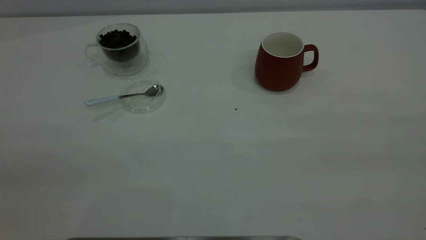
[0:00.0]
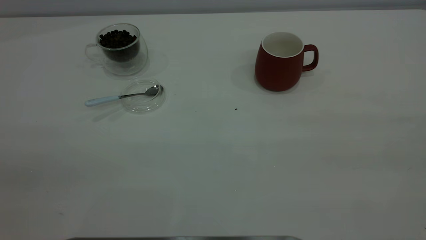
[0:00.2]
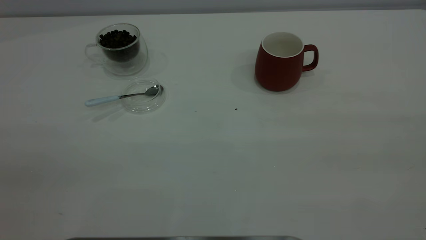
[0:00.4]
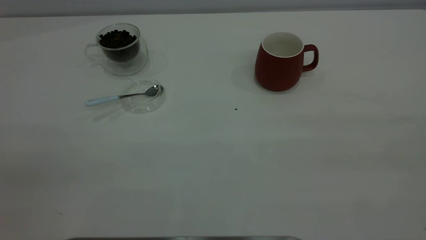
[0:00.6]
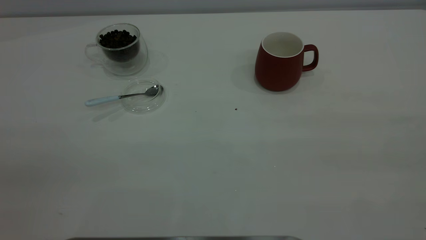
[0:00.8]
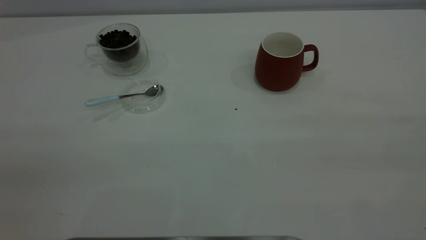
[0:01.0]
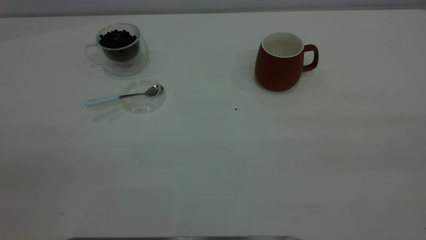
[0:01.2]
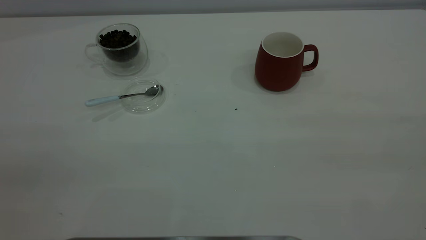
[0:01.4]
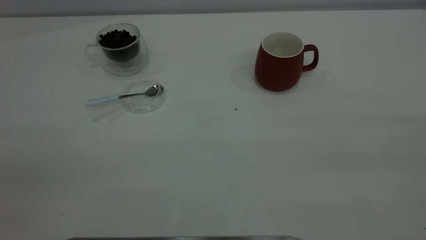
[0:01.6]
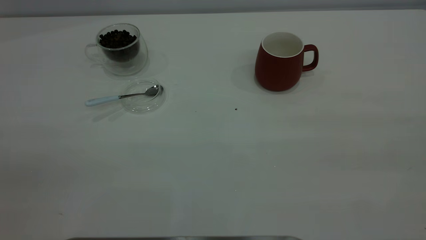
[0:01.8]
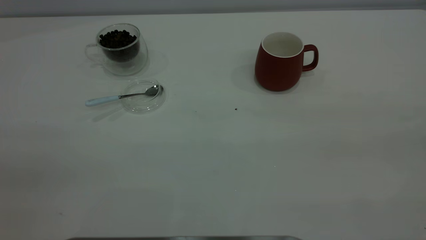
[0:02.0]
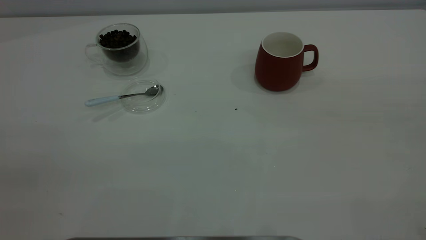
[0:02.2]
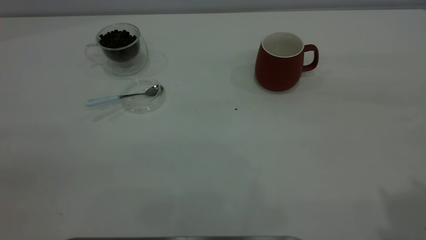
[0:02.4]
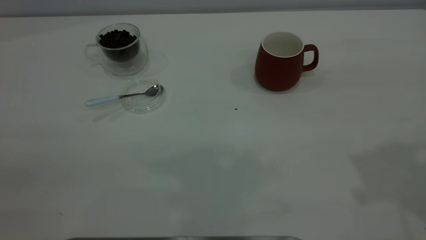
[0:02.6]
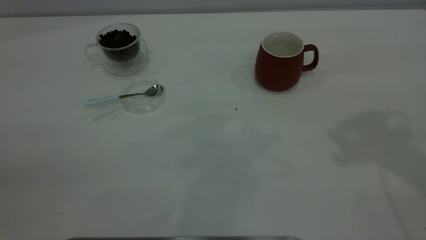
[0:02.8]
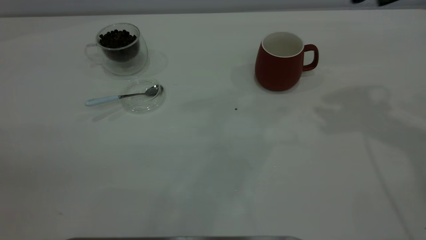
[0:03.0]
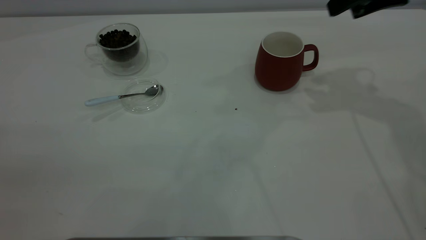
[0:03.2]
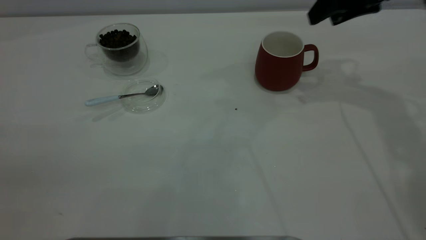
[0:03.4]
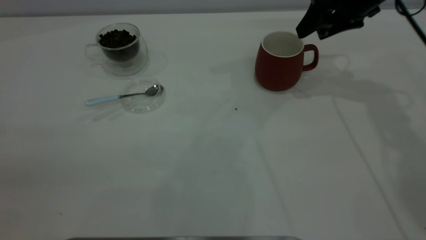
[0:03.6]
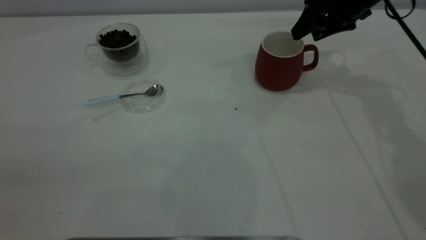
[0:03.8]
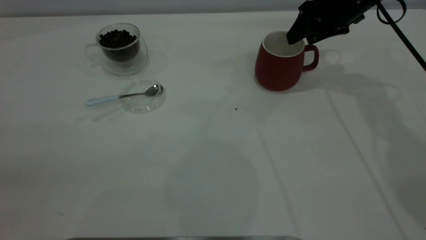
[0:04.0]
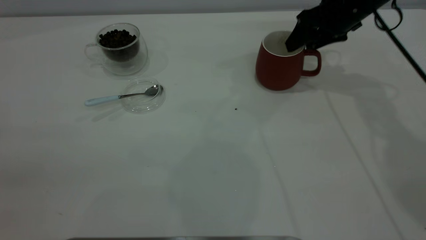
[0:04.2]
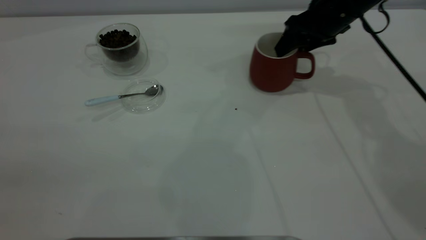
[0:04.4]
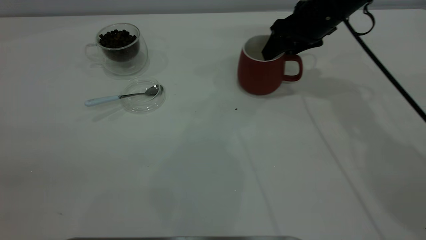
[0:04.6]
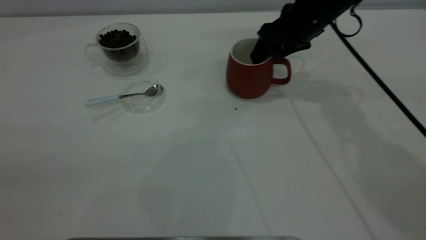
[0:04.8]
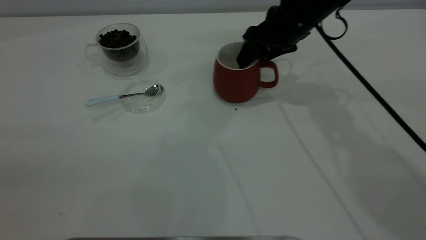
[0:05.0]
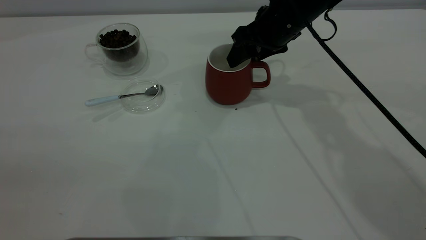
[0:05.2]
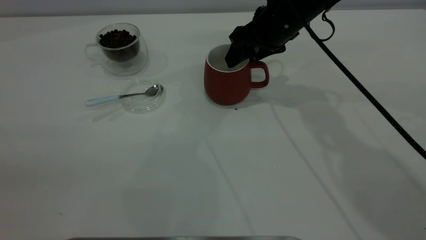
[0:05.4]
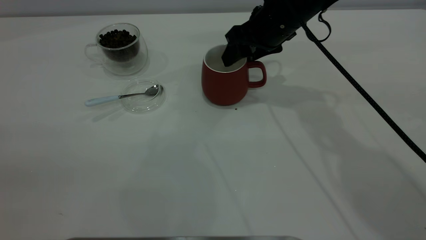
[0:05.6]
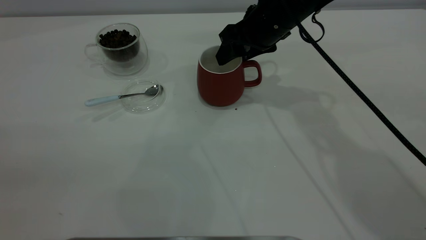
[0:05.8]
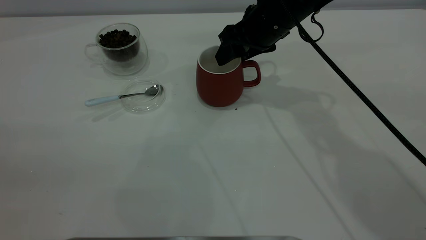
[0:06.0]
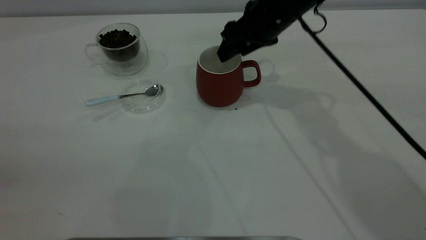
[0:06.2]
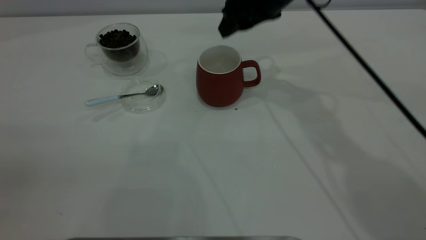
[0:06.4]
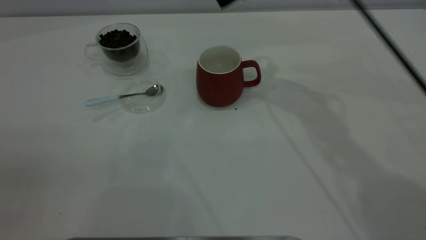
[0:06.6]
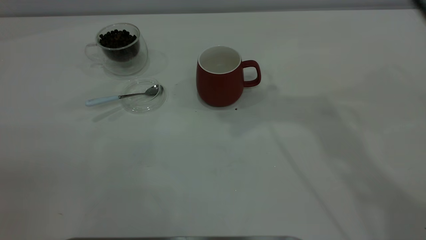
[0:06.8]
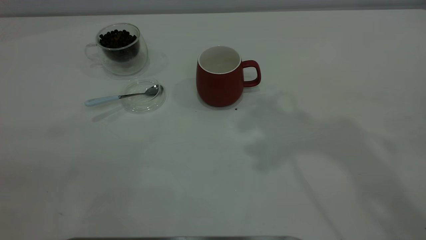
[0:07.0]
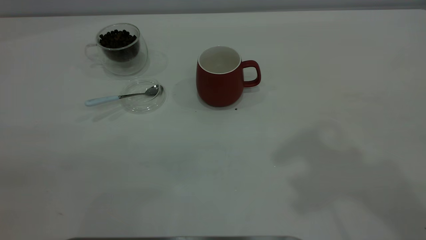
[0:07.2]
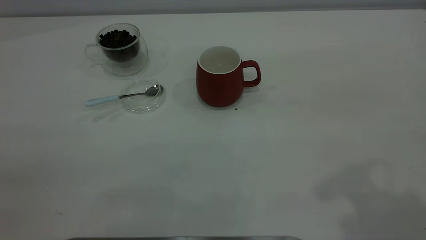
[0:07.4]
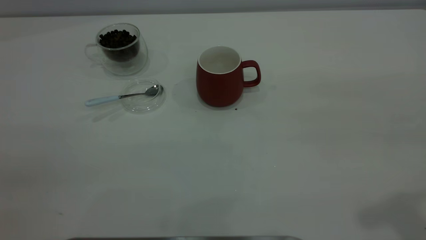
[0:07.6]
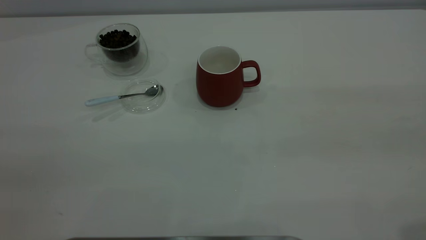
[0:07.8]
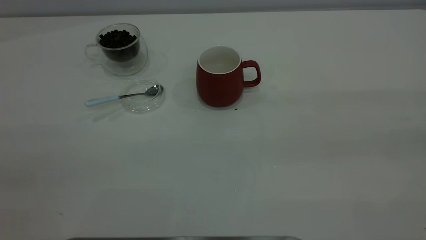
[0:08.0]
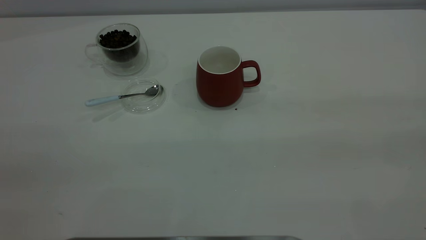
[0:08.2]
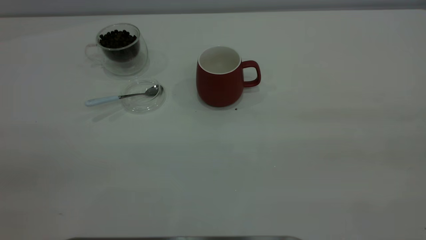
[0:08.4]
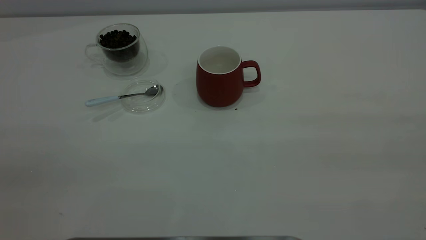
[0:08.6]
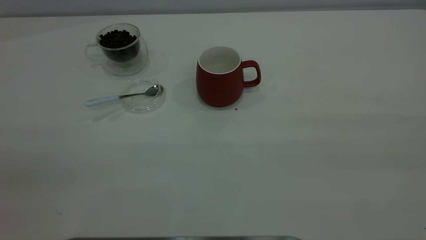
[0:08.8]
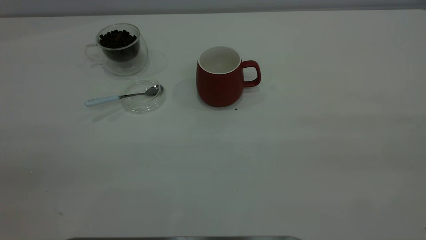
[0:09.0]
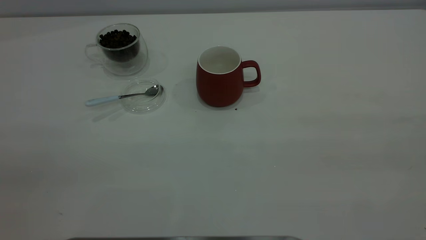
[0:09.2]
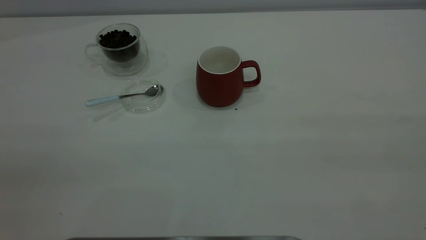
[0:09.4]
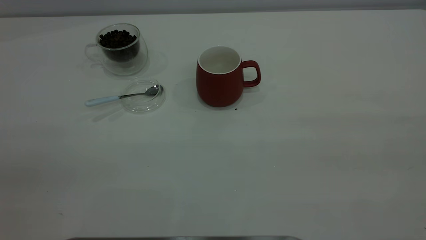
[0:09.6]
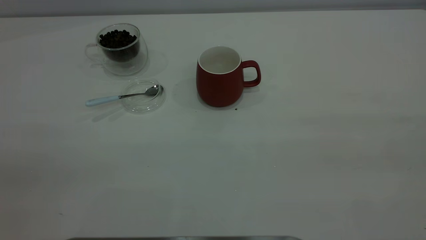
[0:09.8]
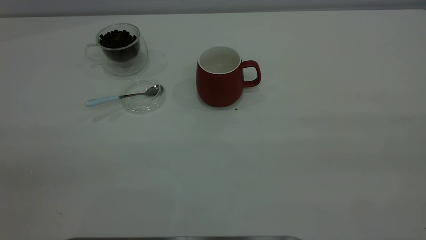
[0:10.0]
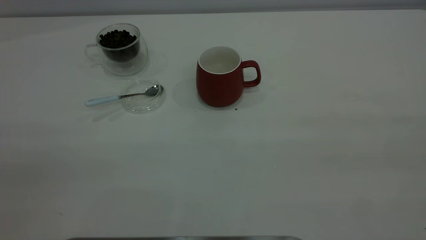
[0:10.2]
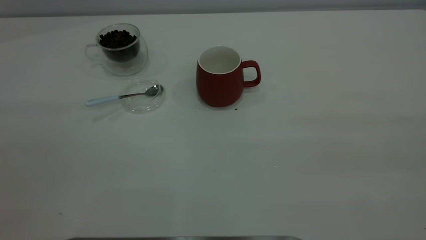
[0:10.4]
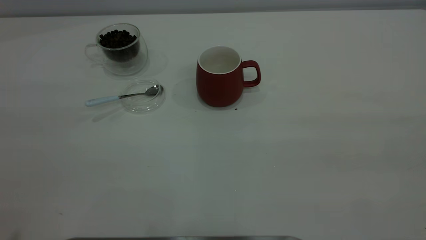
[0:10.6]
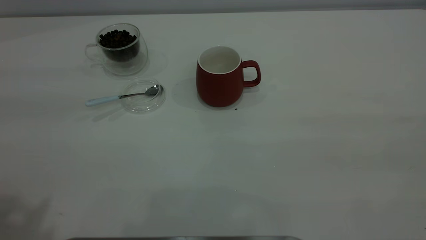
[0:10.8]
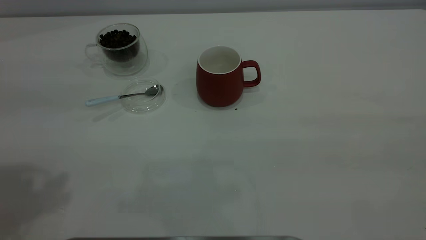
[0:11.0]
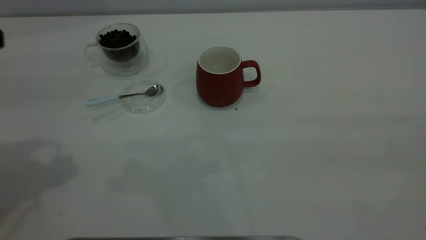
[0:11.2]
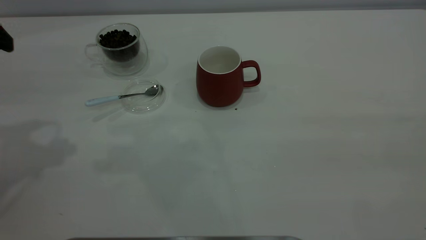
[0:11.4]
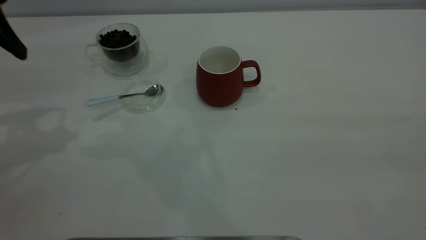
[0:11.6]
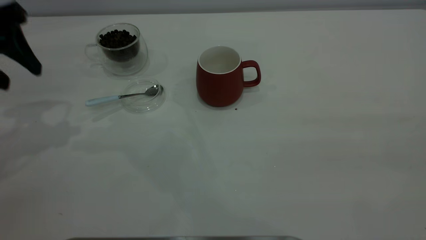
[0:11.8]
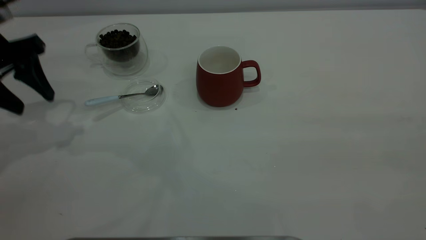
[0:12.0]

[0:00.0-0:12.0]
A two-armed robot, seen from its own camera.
Task of the whole recording: the right gripper place the red cup in the center of the table, the left gripper take the blue spoon from the cup lid and scoop out the coffee beans from the coffee cup and put them into the red cup, the left gripper put the spoon back into the cup lid.
Step, 0:00.0 to 0:06.2: Move the cup to the center of view.
0:00.0 to 0:01.6: Both grippers stay put.
0:03.0 to 0:04.4: The right gripper heads downward, forward and to the left, covering about 20 cm.
0:04.4 to 0:06.0: The right gripper moves to the left, some 10 cm.
0:06.0 to 0:07.6: The right gripper goes approximately 40 cm backward, upward and to the right.
0:10.4 to 0:12.0: The left gripper travels forward and downward by about 35 cm.

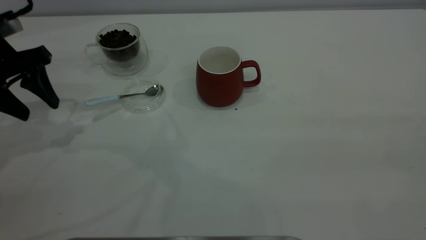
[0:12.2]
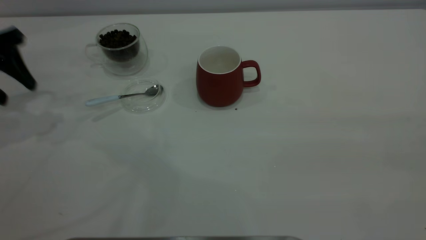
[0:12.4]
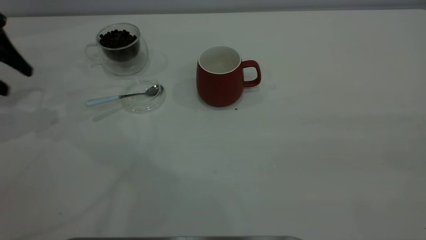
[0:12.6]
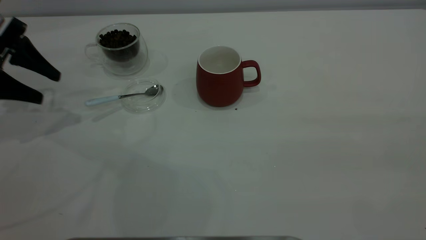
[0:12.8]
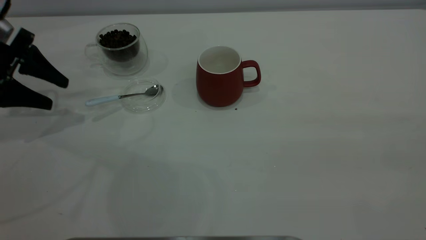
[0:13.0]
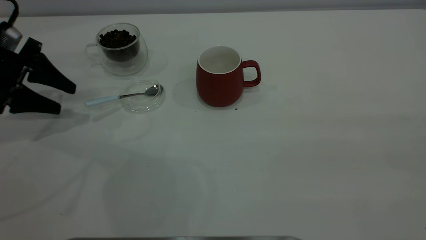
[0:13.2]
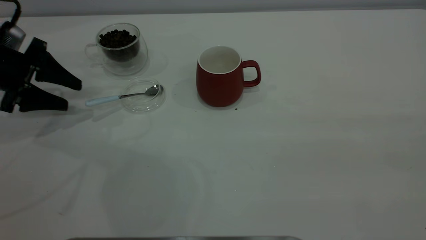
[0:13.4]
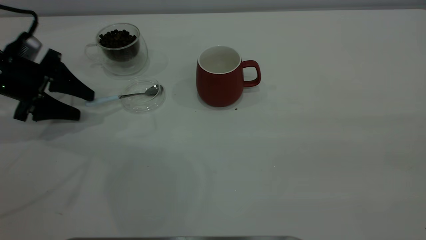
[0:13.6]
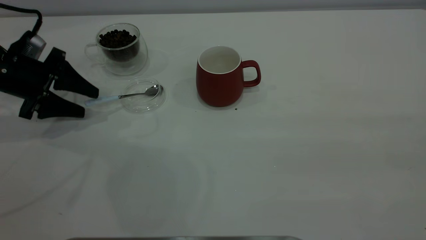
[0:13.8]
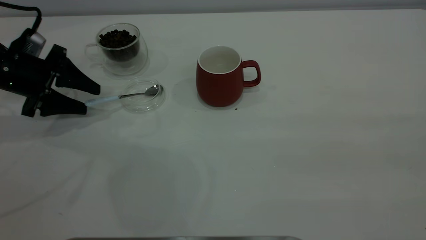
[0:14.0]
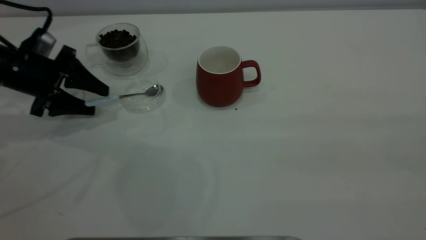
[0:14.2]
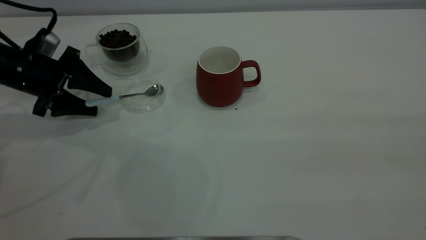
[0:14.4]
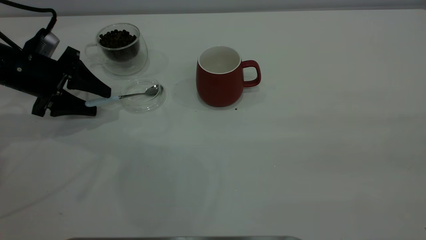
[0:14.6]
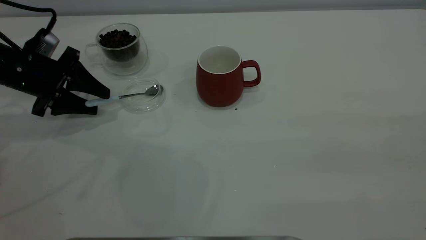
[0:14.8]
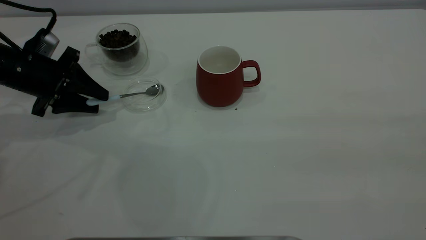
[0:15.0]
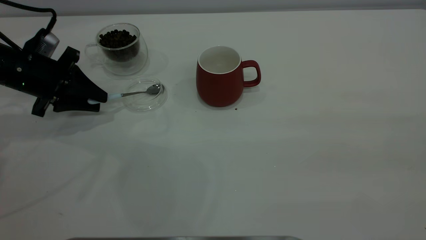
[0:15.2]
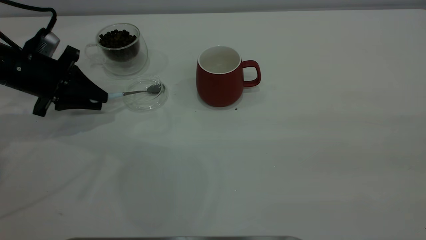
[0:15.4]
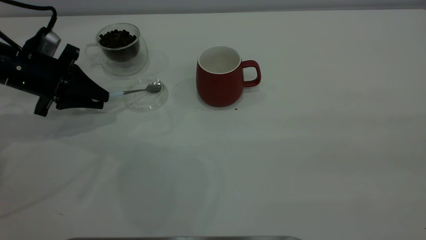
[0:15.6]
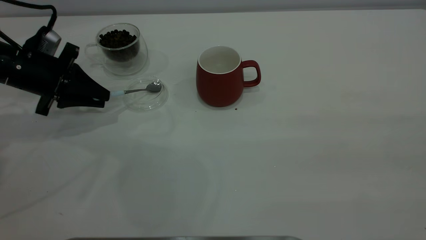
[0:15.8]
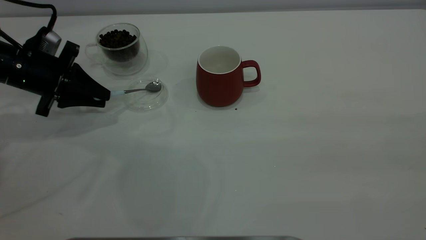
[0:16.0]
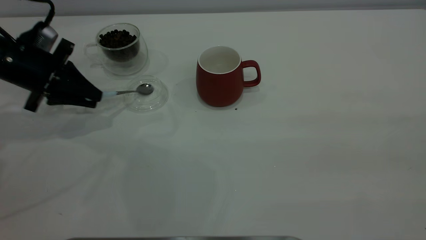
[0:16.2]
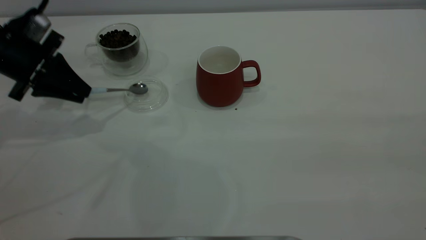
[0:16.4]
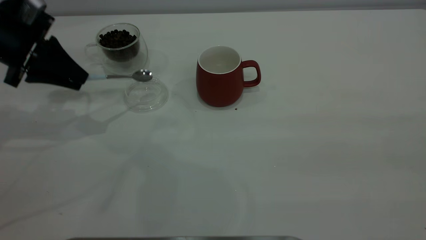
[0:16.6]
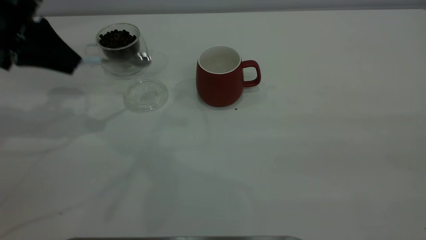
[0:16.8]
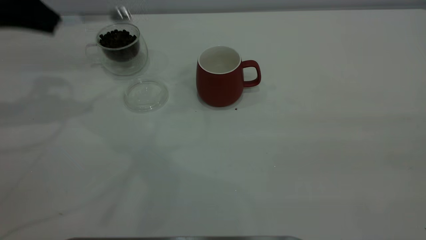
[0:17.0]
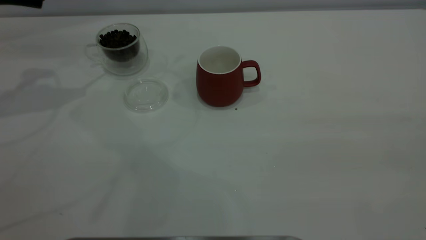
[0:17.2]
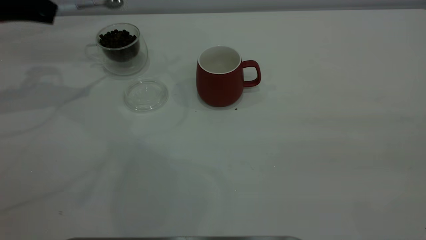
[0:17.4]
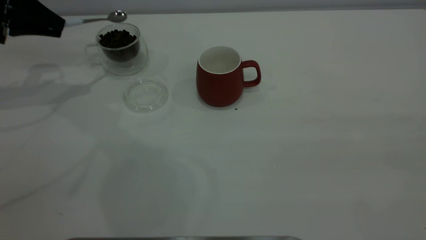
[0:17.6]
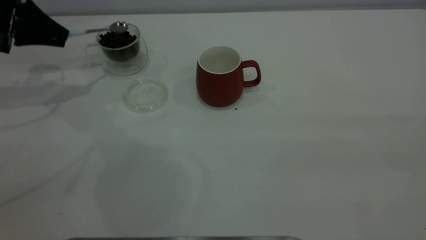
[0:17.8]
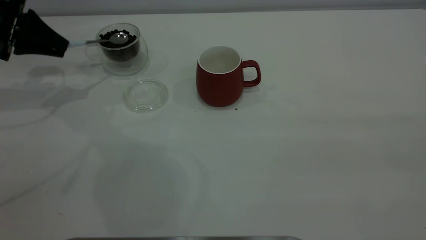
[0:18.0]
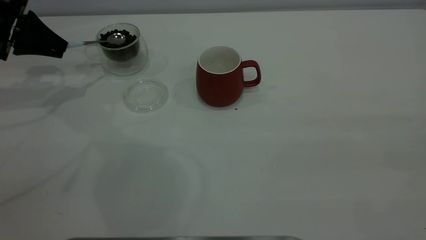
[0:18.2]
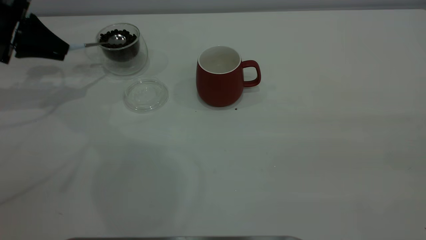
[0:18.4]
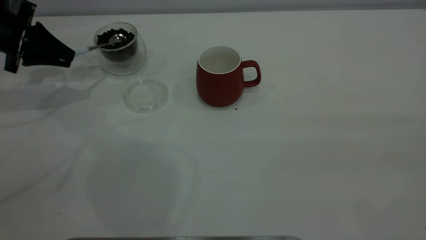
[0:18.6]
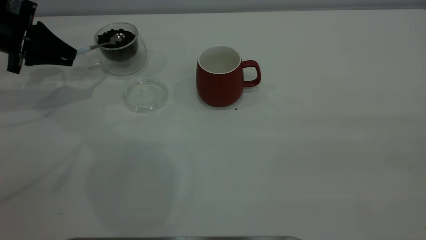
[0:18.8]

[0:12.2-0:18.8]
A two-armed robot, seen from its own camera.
Task of the whole recording: the right gripper place the red cup in the center of the table, the left gripper take the blue spoon from the cup lid and scoop out the coffee beans from the coffee cup and put them into the red cup, the left gripper put the spoon back into the cup lid.
Step, 0:12.2 to 0:16.4: Pick up the spoon.
0:12.2 to 0:13.8: The left gripper moves downward, roughly 10 cm.
0:13.8 to 0:15.4: The left gripper closes its fingers.
0:15.4 to 0:17.2: The left gripper goes about 15 cm upward.
0:17.2 to 0:18.8: The left gripper goes some 10 cm downward.
